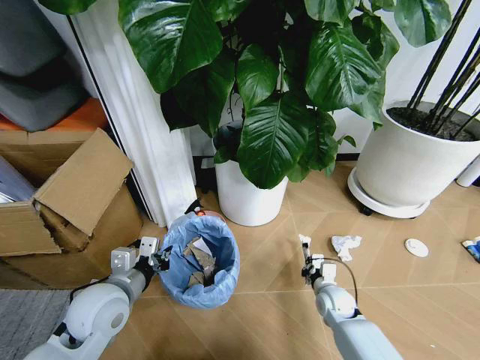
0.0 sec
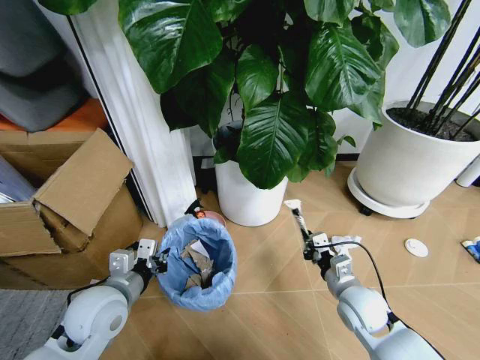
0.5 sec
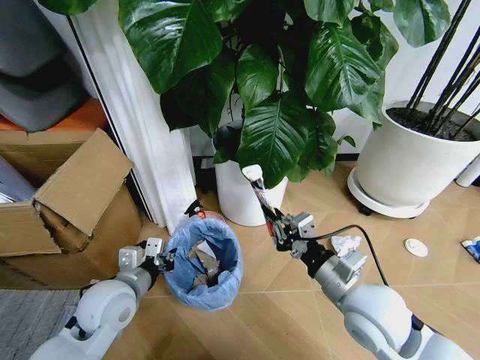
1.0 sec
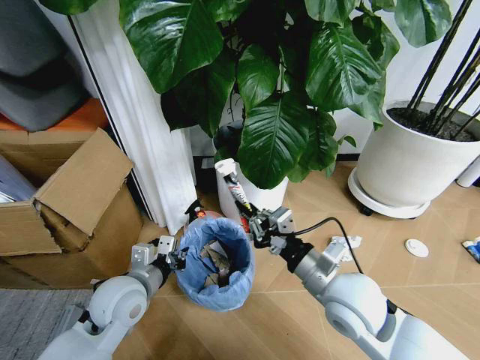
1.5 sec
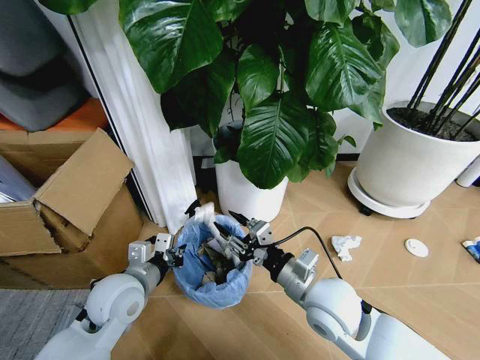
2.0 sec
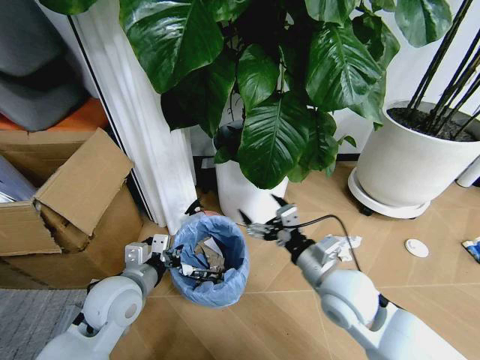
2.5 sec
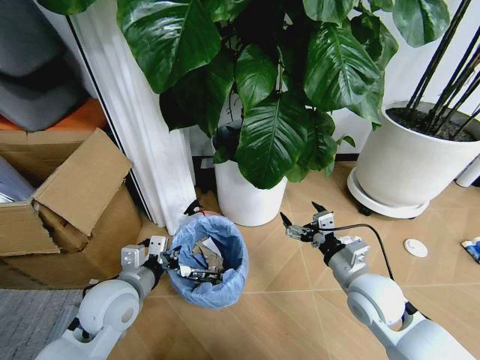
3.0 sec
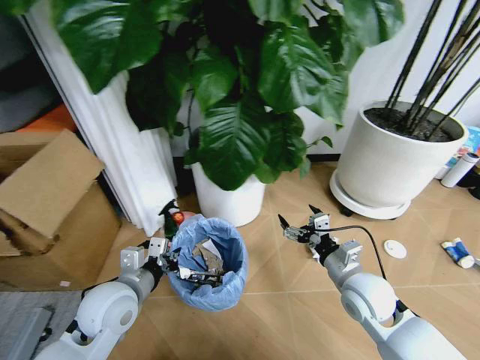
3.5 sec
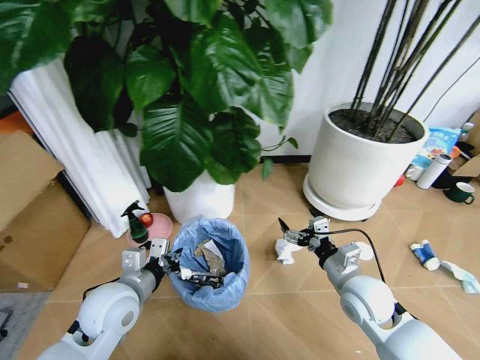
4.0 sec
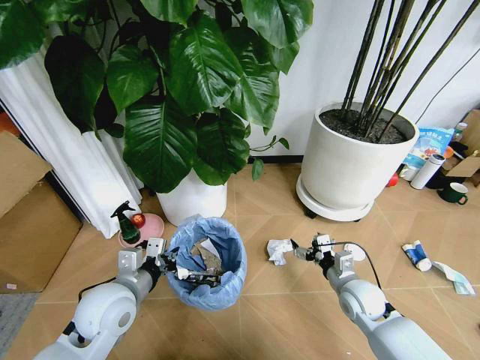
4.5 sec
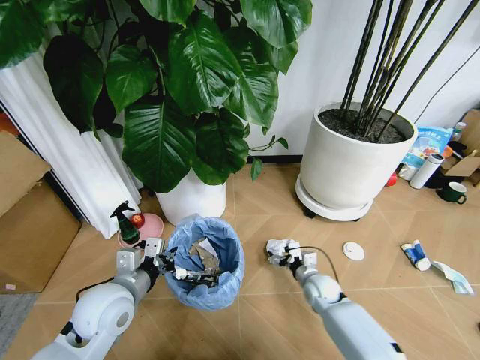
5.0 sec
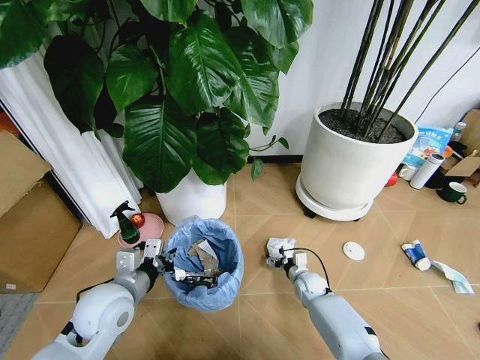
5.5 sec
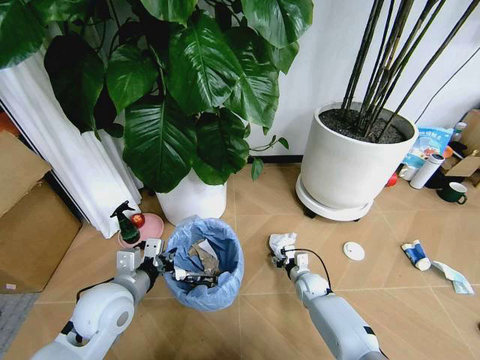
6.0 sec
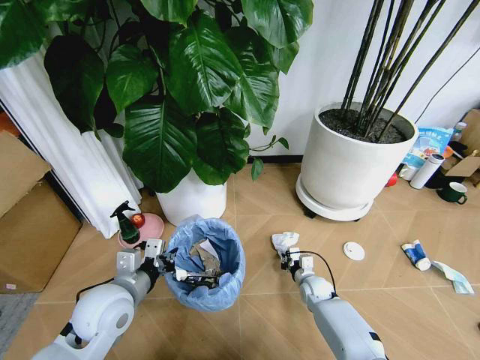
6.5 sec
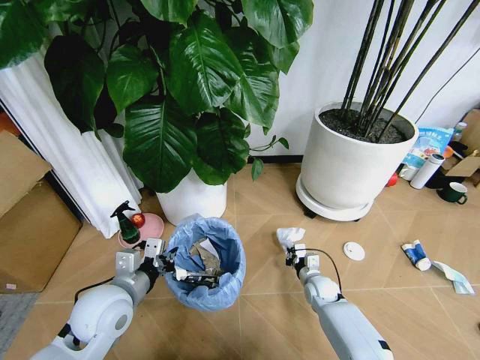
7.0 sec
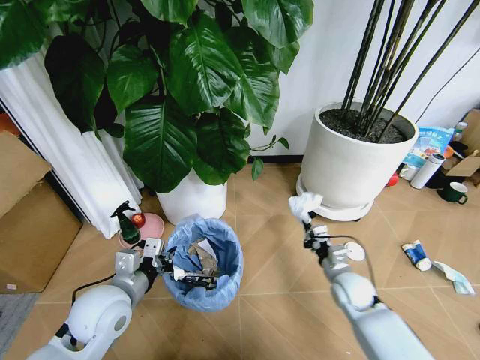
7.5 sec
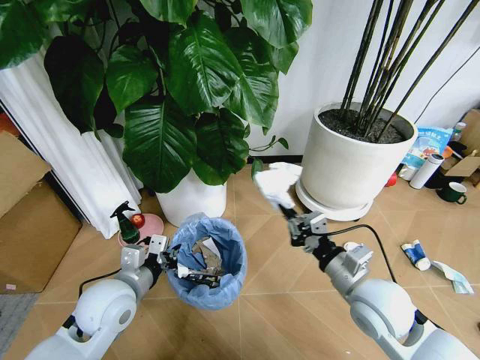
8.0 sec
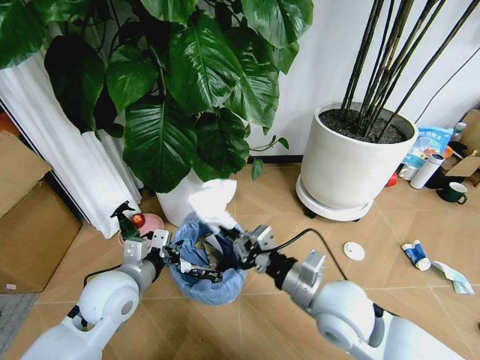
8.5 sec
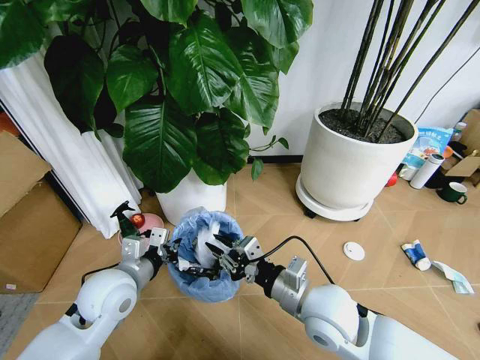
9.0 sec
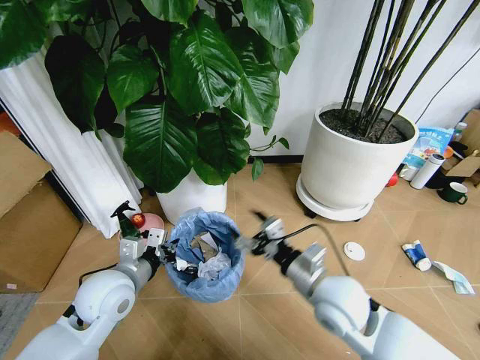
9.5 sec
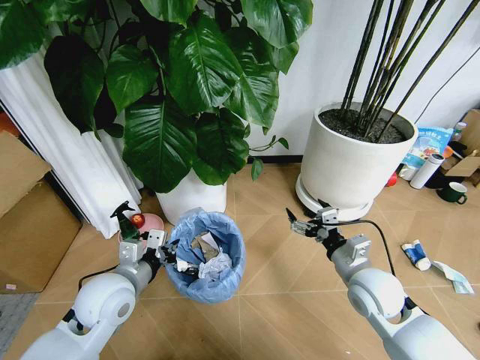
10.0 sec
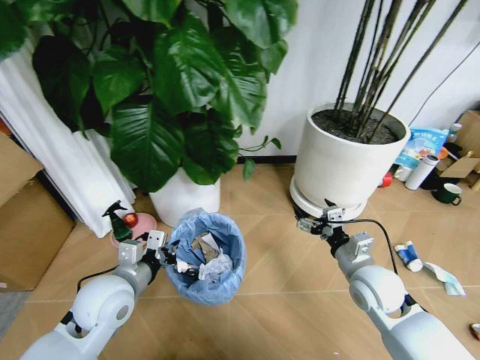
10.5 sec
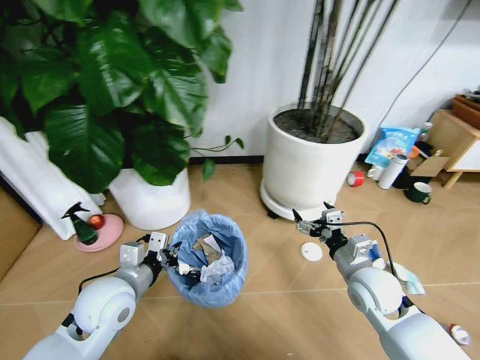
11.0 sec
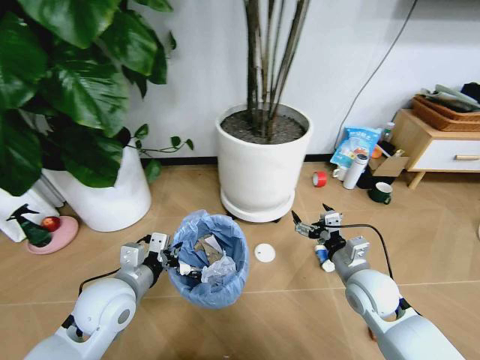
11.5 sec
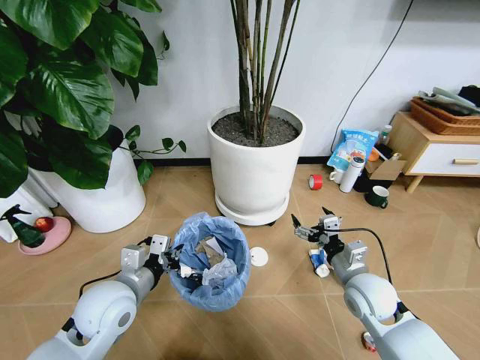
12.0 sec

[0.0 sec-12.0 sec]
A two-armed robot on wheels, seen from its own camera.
Task of the whole recording: Pick up the trash bin and place the garbage on the floor into it.
0.0 sec to 2.0 sec: The right gripper is displaced upward and to the left by some 25 cm, and opens its fingers.
2.0 sec to 4.0 sec: The right gripper is displaced to the right and downward by roughly 10 cm, and opens its fingers.
4.0 sec to 6.0 sec: The right gripper heads downward and forward, covering approximately 25 cm, and closes.
6.0 sec to 8.0 sec: The right gripper goes roughly 35 cm upward and backward, and closes up.
8.0 sec to 10.0 sec: The right gripper reaches roughly 10 cm to the left, then returns, and opens its fingers.

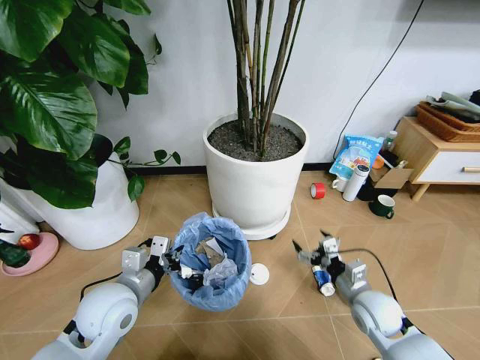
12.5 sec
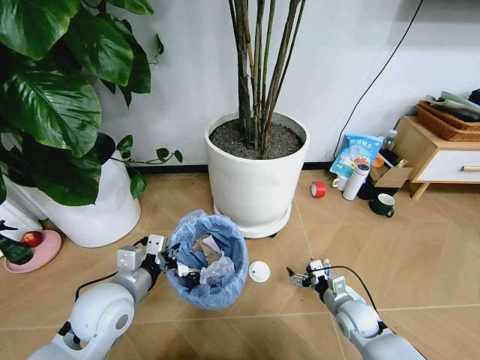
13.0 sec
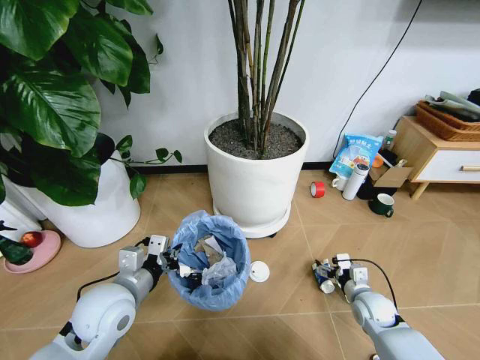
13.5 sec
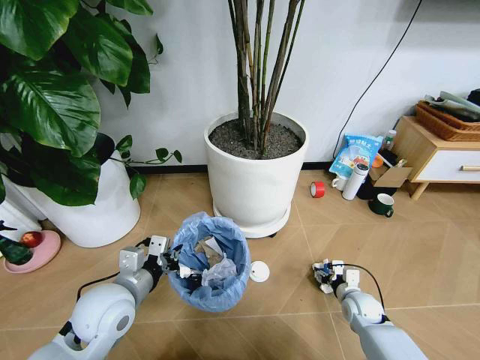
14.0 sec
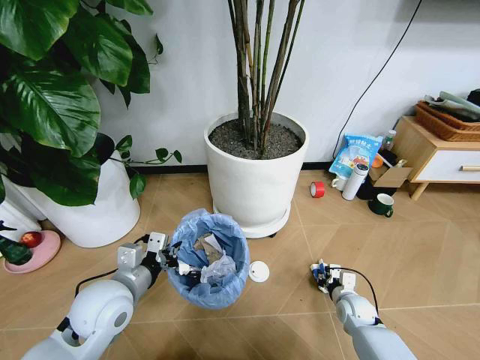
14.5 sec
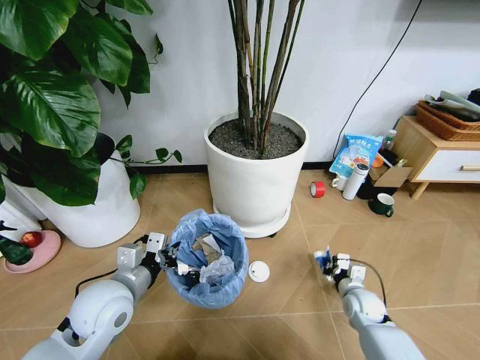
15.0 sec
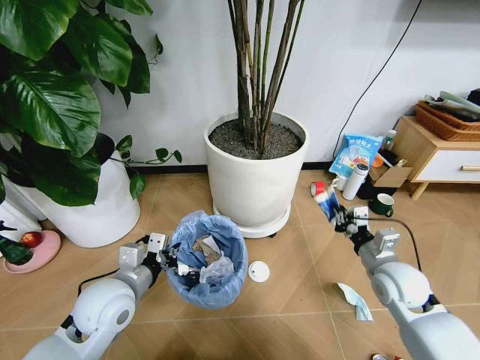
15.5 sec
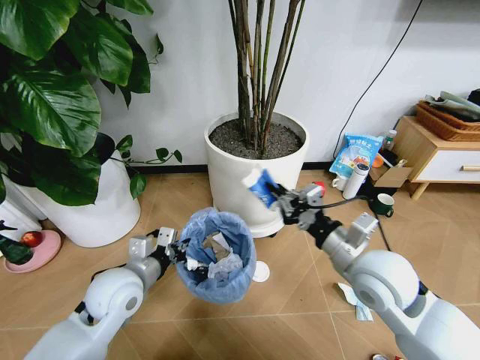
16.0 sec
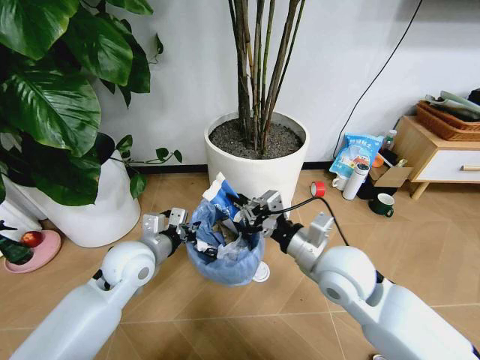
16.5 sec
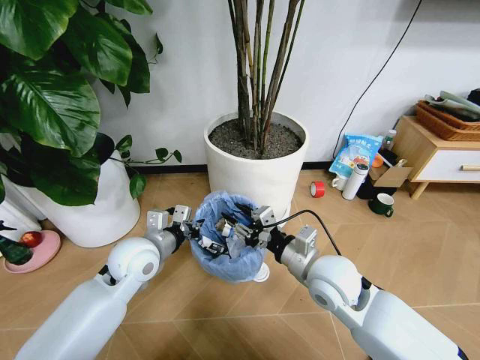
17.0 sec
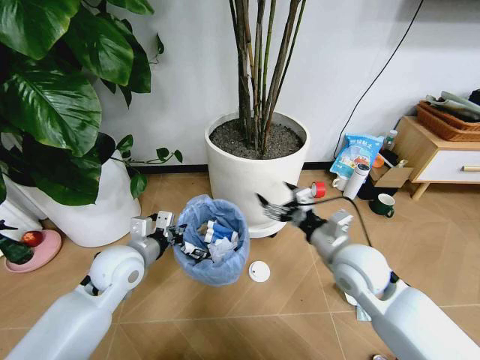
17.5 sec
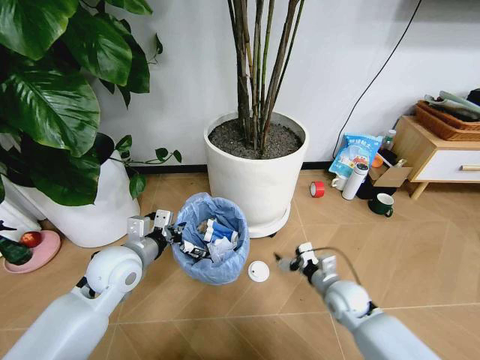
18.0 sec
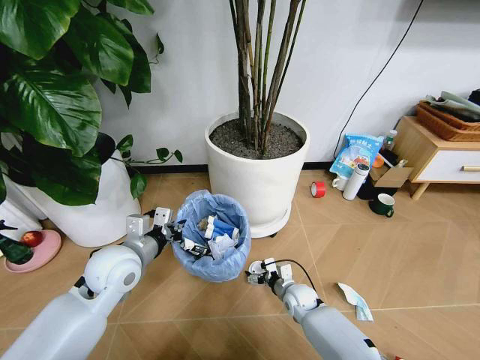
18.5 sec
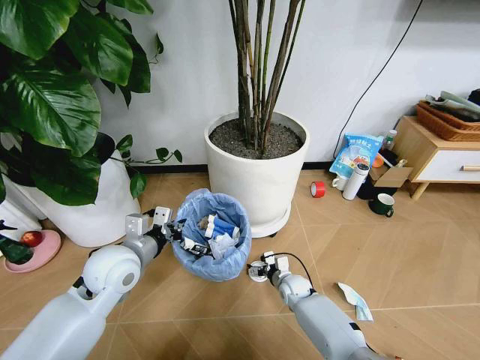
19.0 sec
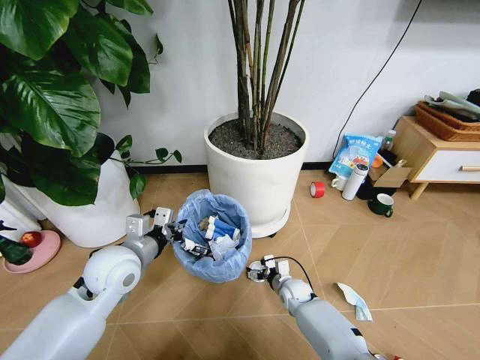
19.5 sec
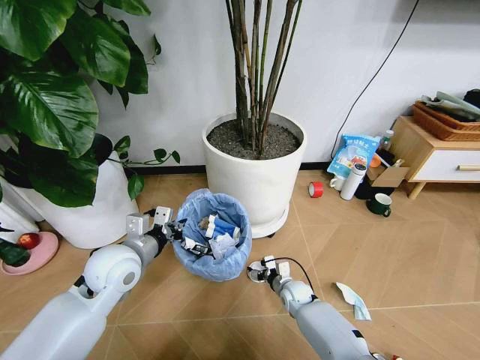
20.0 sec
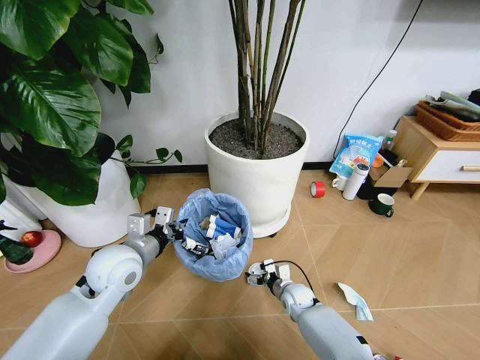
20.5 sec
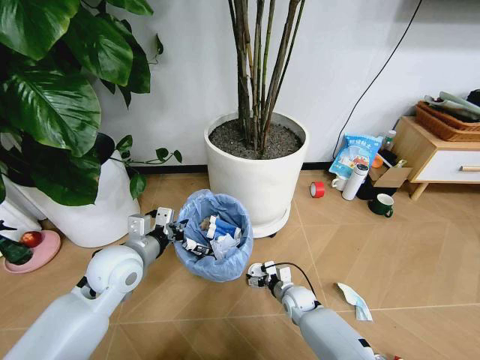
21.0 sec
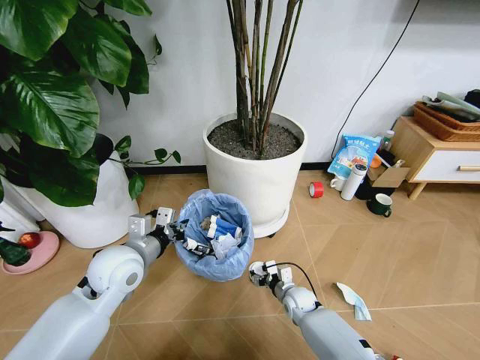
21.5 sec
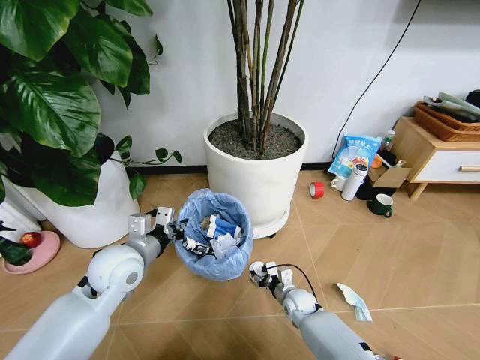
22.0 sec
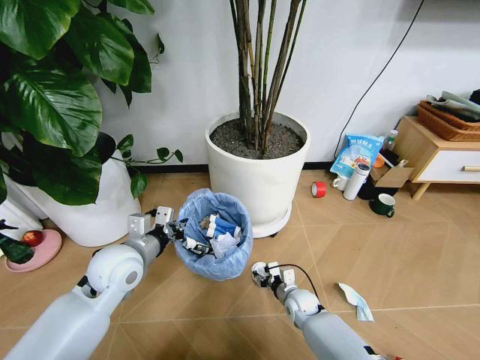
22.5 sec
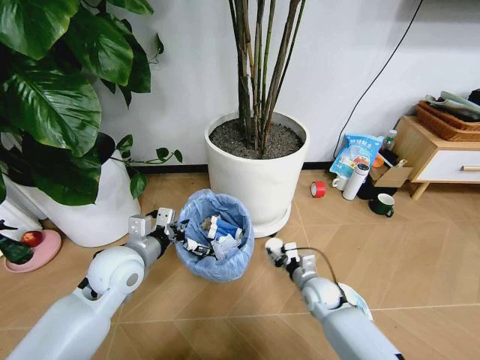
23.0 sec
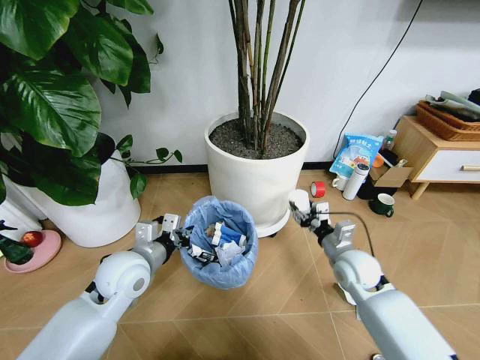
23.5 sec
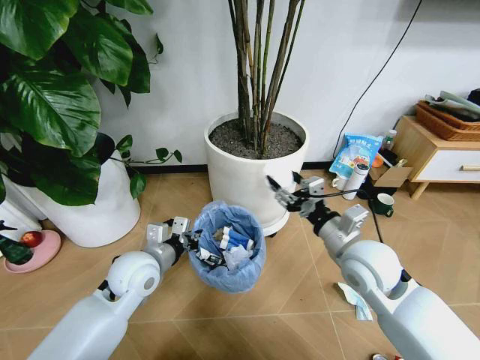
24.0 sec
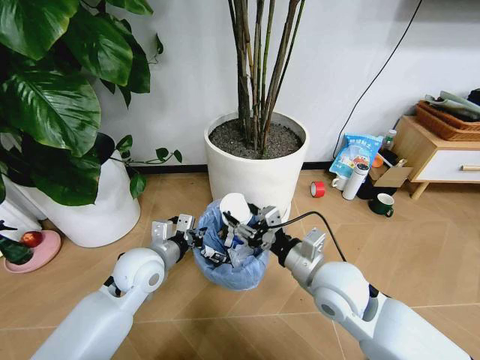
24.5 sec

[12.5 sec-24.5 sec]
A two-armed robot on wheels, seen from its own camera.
Task of the whole recording: Pick up the trash bin and place the garbage on the floor into it.
12.5 sec to 14.5 sec: The right gripper travels downward by about 15 cm, and closes.
14.5 sec to 16.5 sec: The right gripper moves upward and to the left, about 35 cm. Meanwhile the left gripper heads forward, covering approximately 10 cm.
16.5 sec to 18.5 sec: The right gripper travels downward by about 35 cm, and opens.
18.5 sec to 20.5 sec: The grippers make only small movements.
20.5 sec to 22.5 sec: The right gripper closes.
22.5 sec to 24.5 sec: The right gripper moves upward, about 30 cm.

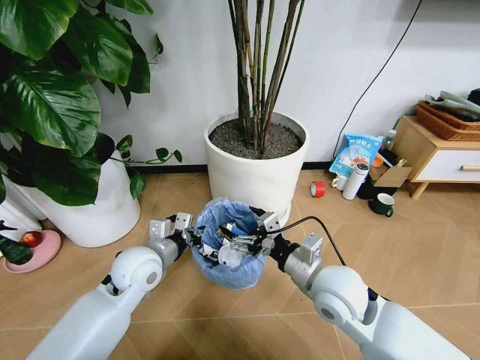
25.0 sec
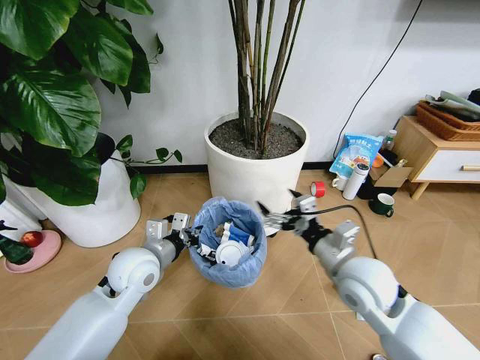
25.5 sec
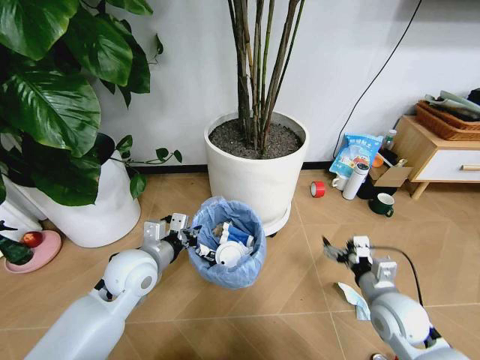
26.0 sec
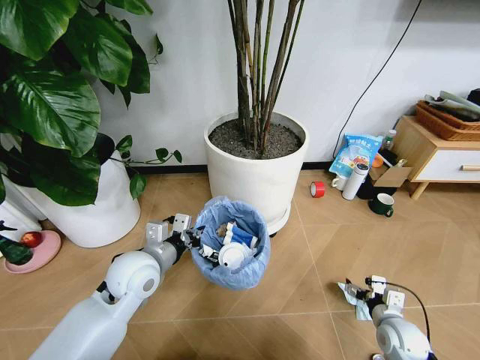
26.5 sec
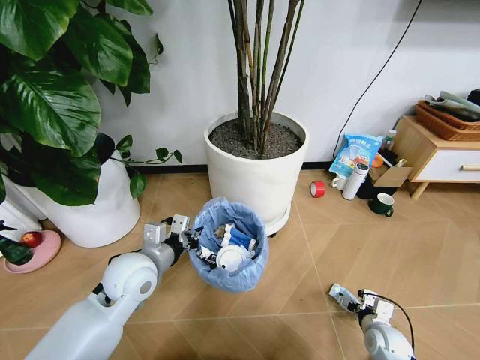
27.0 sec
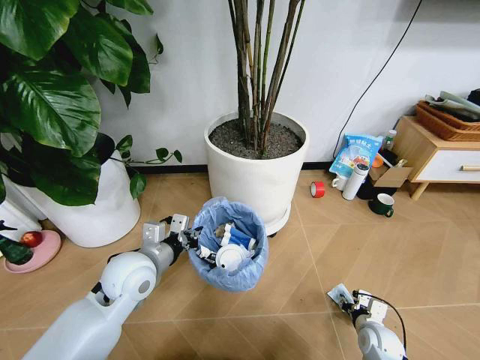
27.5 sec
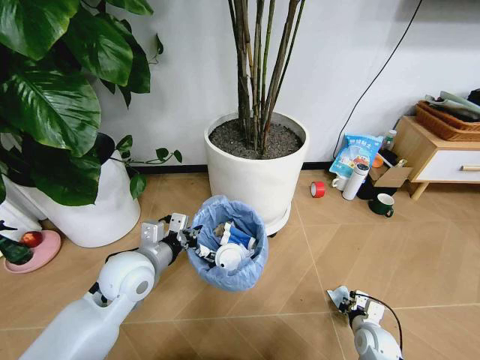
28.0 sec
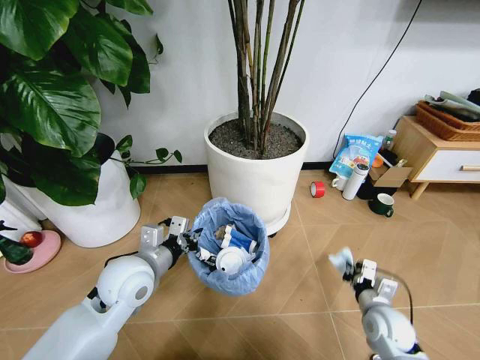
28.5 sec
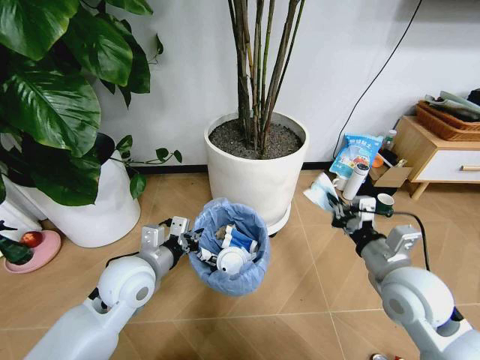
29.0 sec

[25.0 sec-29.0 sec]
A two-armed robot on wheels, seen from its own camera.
Task of the whole recording: Pick up the trash bin and place the garbage on the floor into it.
25.0 sec to 27.0 sec: The right gripper moves downward and to the right, some 35 cm.
27.0 sec to 29.0 sec: The right gripper heads upward, covering about 30 cm, and closes up.
